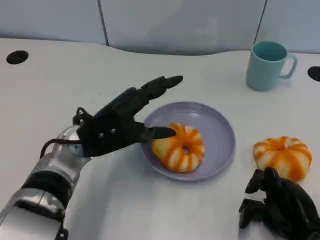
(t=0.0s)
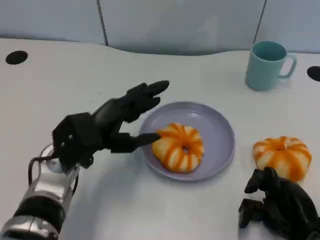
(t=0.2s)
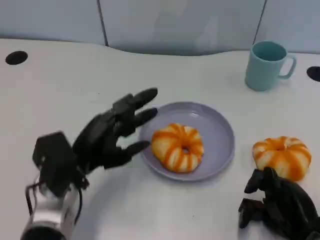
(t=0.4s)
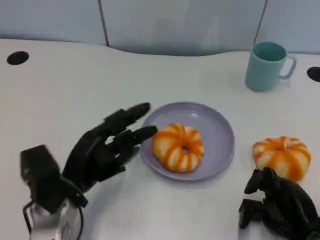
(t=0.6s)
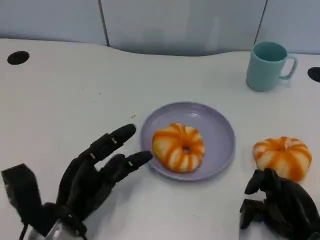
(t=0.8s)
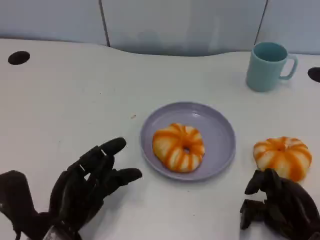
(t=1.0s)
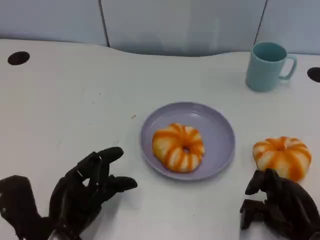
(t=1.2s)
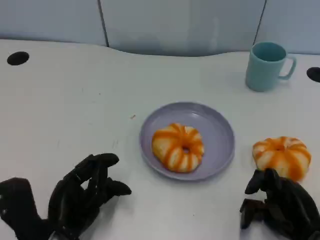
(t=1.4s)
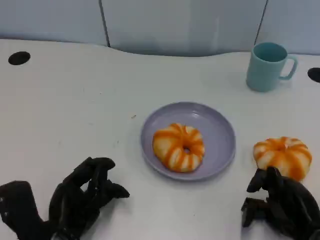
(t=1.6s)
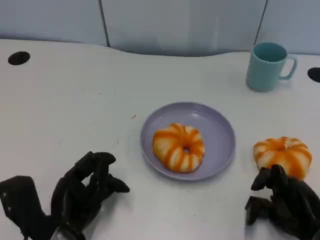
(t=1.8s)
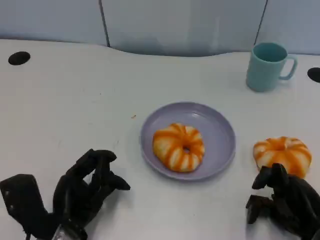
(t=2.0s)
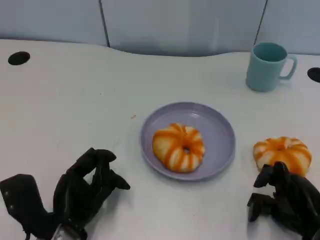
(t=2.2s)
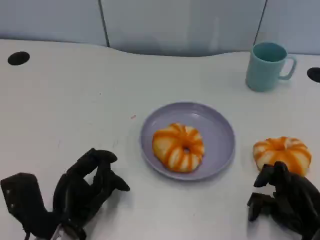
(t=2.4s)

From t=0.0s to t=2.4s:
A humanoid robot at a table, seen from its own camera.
Task of the whole recording: Grasp the bread from the table and place it into the plate.
From t=0.0s to t=1.2s: The left hand is displaced backward and downward by approximately 15 cm.
From t=1.2s to t=2.4s: The hands stay close to where they were, moving slightly.

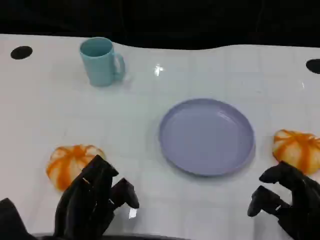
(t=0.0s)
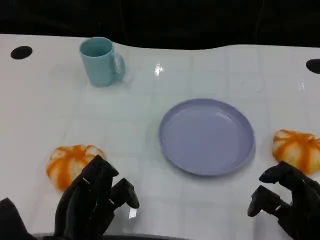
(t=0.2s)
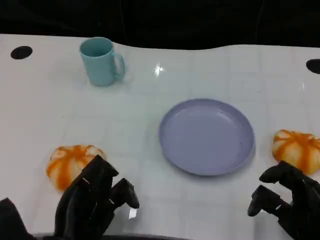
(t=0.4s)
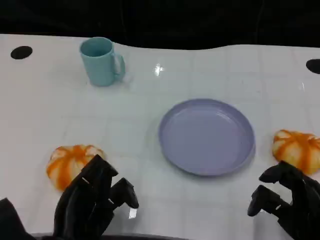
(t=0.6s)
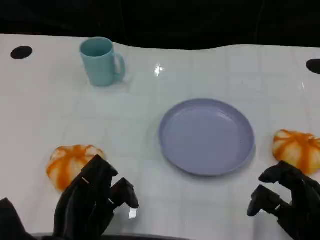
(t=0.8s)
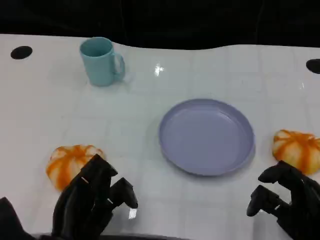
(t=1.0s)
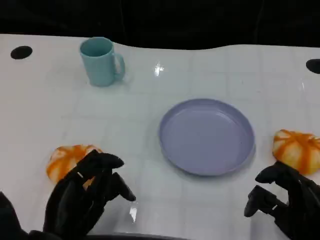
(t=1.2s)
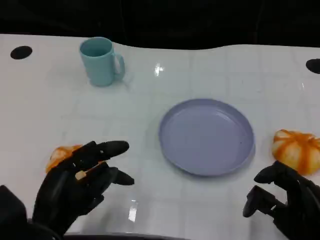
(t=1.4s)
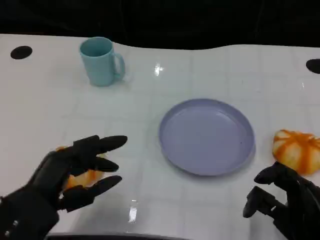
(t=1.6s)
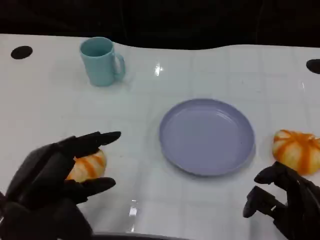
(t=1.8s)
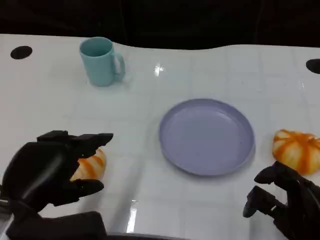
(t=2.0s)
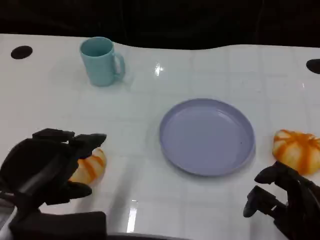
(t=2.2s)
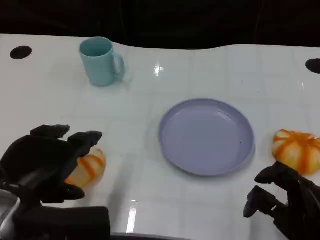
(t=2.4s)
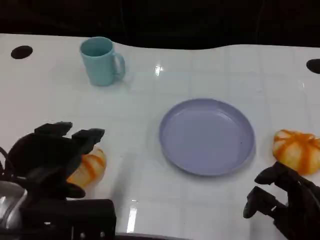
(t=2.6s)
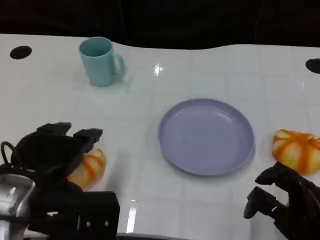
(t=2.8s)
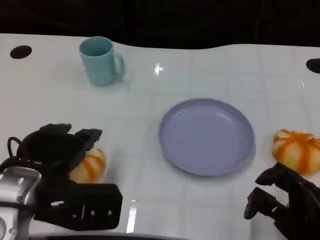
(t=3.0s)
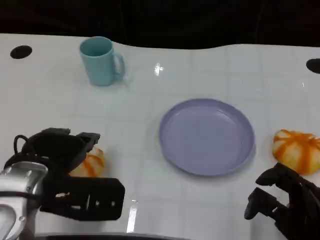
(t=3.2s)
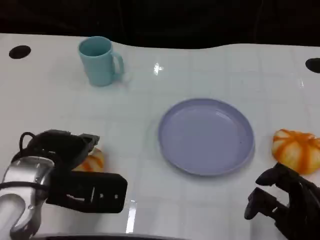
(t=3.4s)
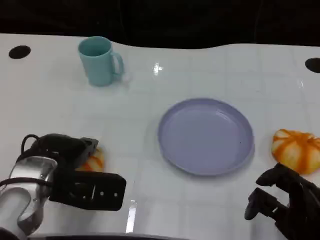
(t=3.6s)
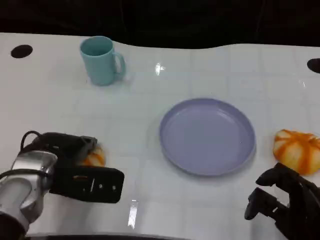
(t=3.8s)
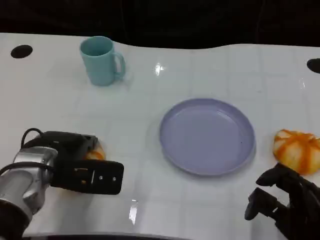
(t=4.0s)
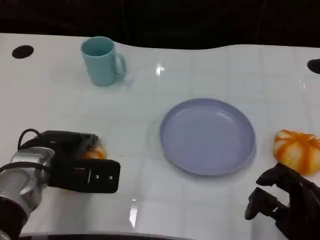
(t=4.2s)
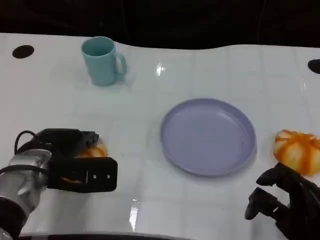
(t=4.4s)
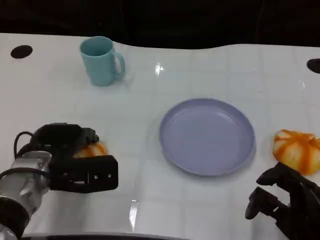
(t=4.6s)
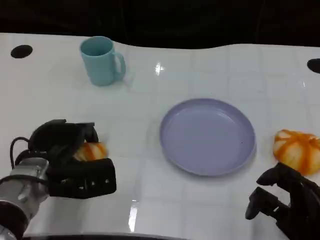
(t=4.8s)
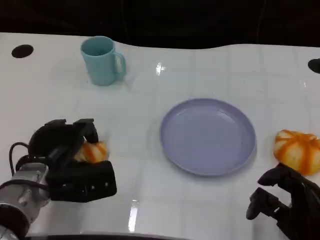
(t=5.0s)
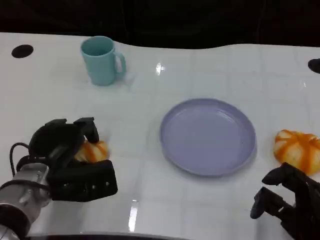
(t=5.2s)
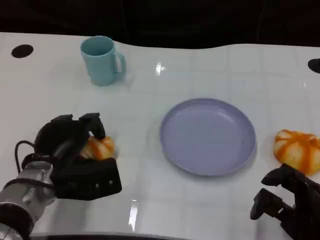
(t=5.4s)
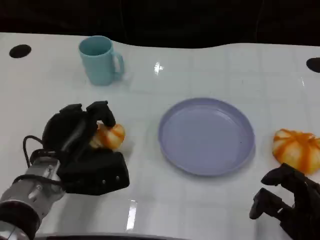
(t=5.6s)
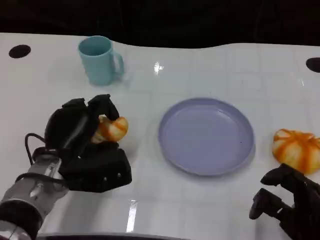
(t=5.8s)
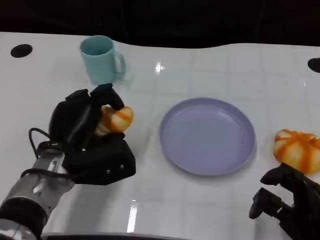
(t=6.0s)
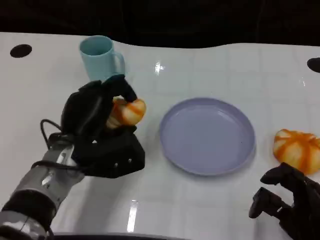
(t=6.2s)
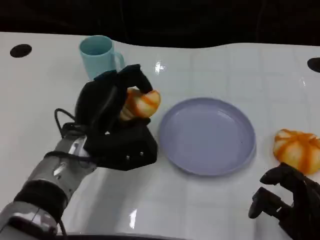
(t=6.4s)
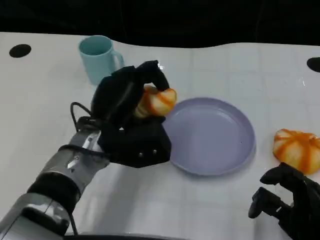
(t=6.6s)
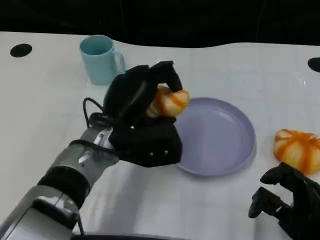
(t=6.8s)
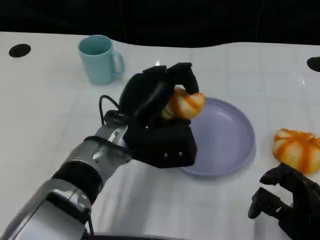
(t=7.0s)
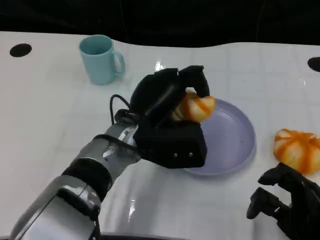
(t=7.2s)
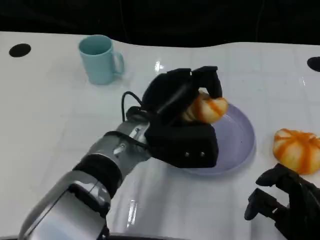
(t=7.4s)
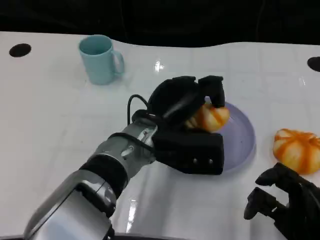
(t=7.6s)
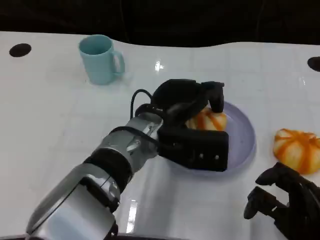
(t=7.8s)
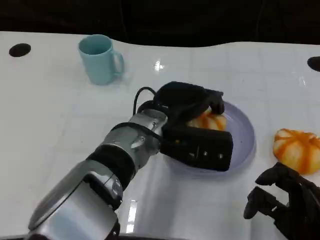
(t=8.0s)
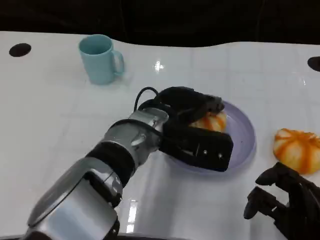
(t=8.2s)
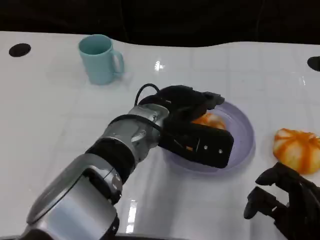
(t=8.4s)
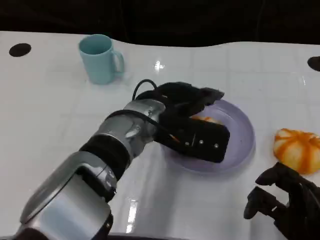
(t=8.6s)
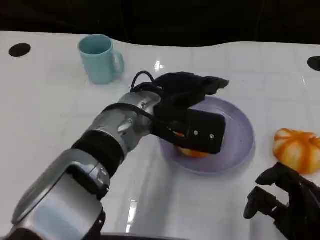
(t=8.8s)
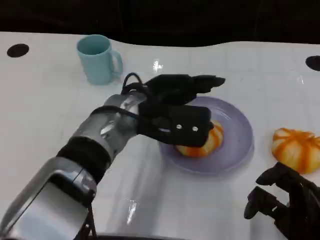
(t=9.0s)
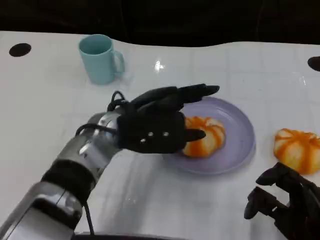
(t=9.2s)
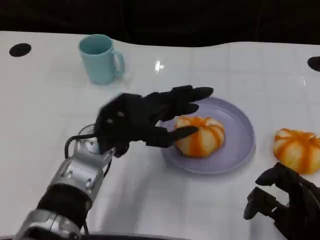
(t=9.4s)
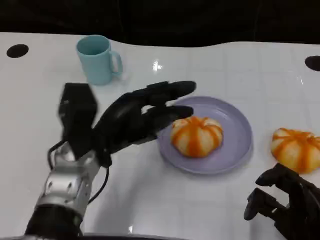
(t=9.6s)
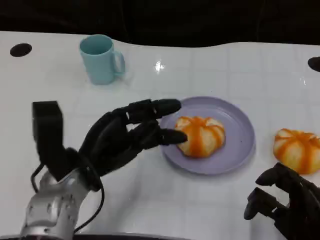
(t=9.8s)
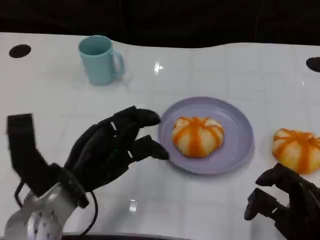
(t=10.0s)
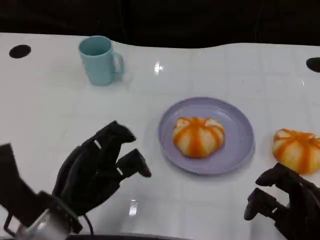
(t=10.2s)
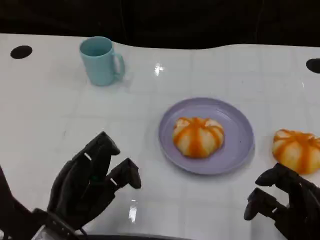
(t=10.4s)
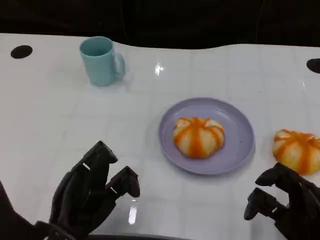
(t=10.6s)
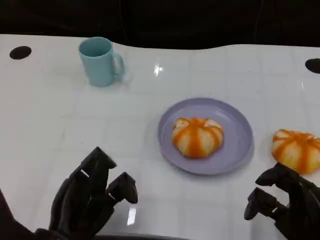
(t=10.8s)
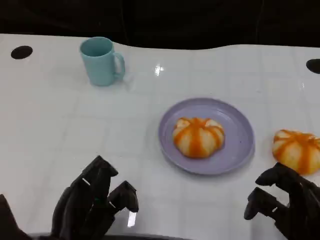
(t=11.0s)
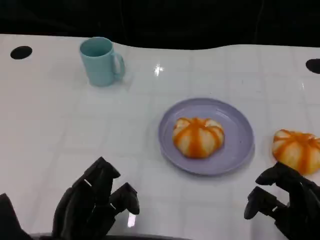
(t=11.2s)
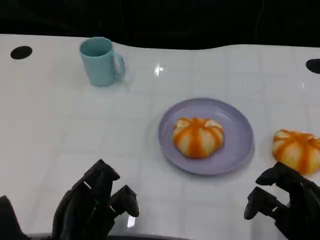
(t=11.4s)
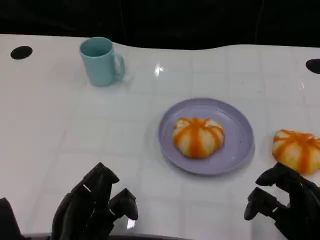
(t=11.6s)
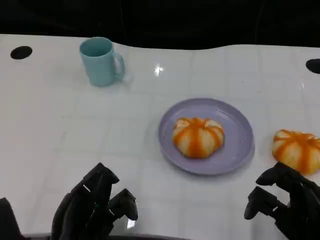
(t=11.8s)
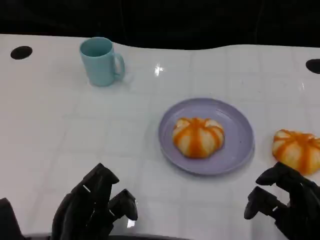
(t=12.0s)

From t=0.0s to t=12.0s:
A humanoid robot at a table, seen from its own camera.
Task of the whole recording: Grasp the bread from the table and place it into the plate.
From t=0.0s to t=1.6s: The left hand travels upward by about 5 cm.
From t=1.6s to t=3.0s: The left hand shifts by approximately 5 cm.
From t=3.0s to t=4.4s: The left hand travels forward and downward by about 10 cm.
From t=6.0s to t=7.6s: The left hand is displaced to the right by about 10 cm.
From t=7.6s to t=9.0s: The left hand ends up roughly 5 cm from where it was.
From t=9.0s to t=10.4s: The left hand heads backward, to the left and downward, covering about 20 cm.
From t=10.4s to t=12.0s: The hands make only small movements.

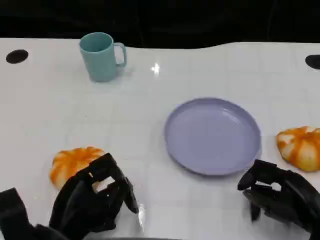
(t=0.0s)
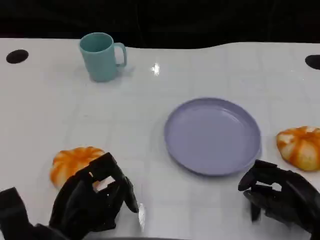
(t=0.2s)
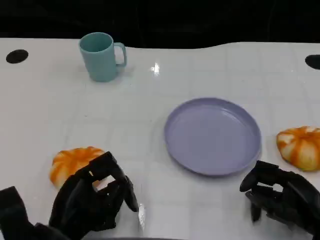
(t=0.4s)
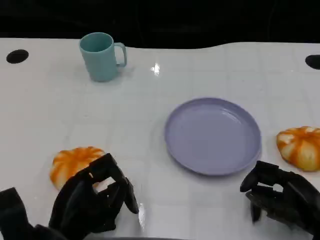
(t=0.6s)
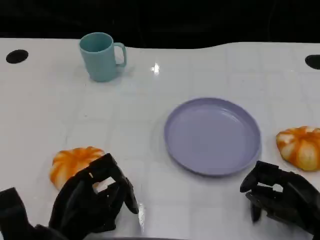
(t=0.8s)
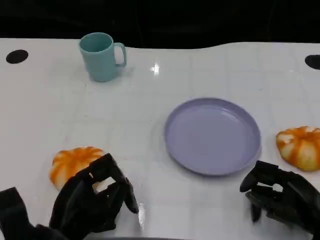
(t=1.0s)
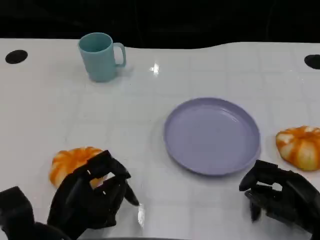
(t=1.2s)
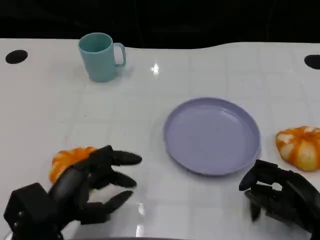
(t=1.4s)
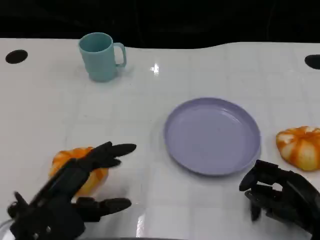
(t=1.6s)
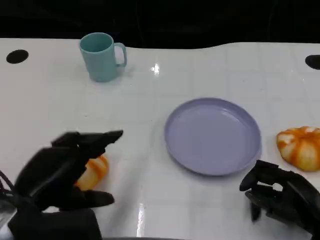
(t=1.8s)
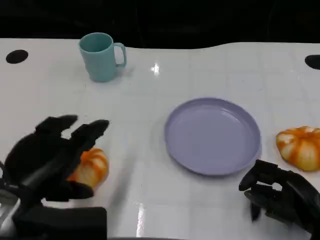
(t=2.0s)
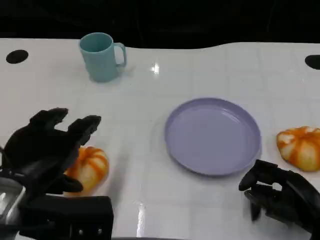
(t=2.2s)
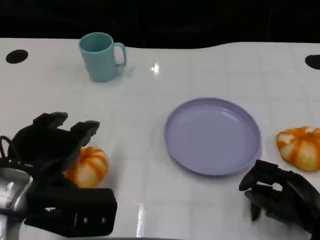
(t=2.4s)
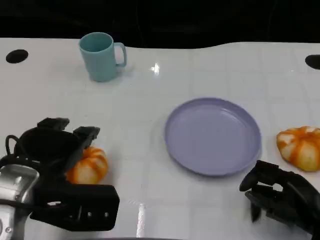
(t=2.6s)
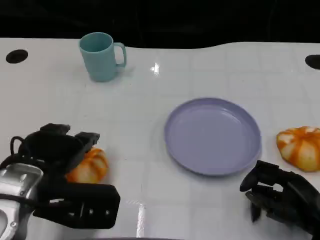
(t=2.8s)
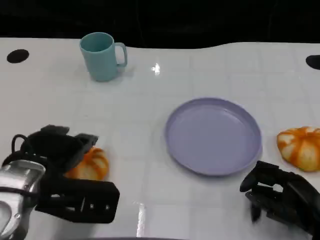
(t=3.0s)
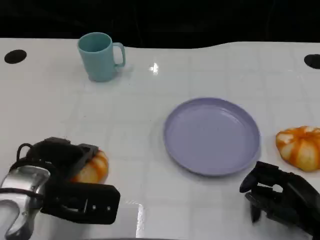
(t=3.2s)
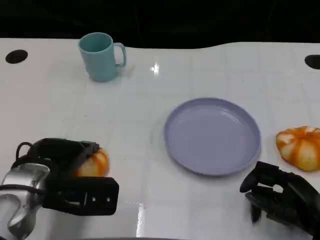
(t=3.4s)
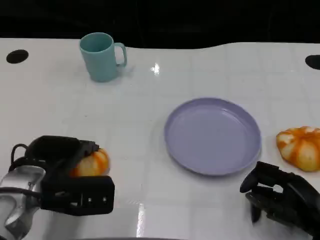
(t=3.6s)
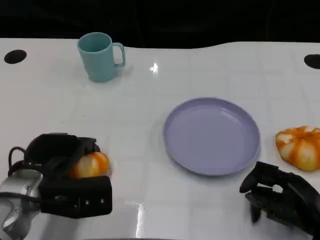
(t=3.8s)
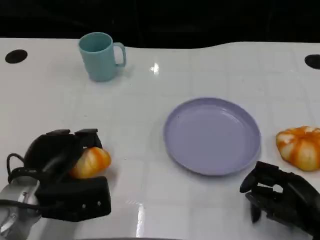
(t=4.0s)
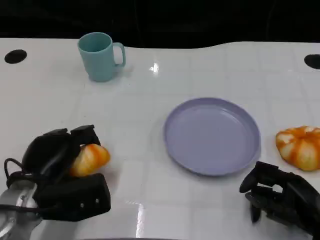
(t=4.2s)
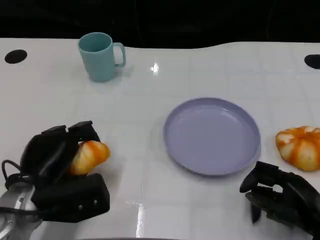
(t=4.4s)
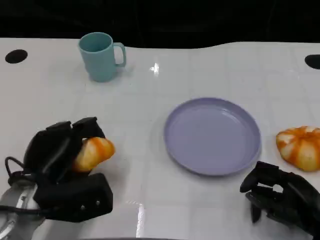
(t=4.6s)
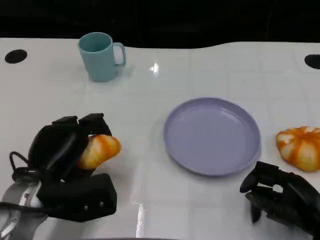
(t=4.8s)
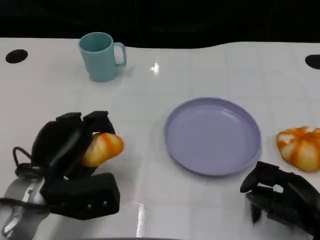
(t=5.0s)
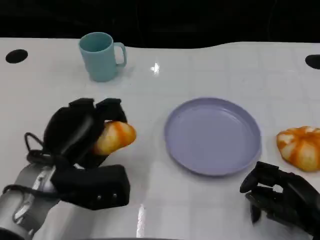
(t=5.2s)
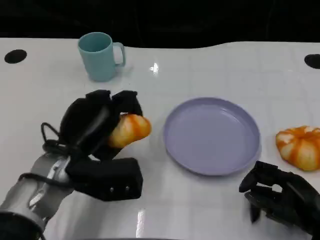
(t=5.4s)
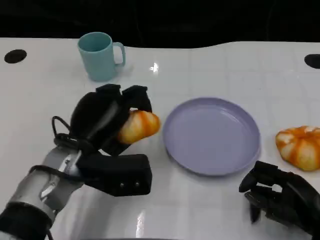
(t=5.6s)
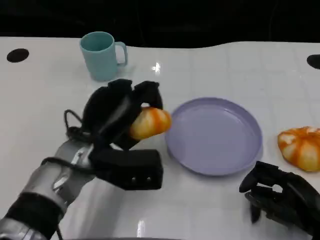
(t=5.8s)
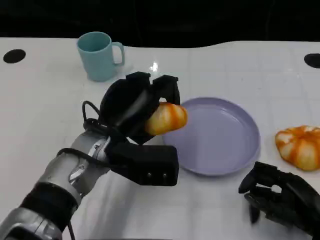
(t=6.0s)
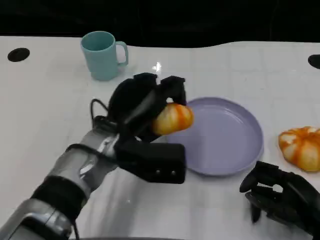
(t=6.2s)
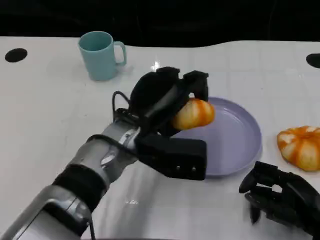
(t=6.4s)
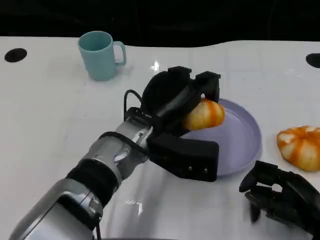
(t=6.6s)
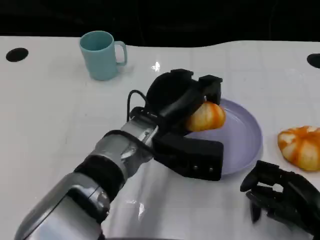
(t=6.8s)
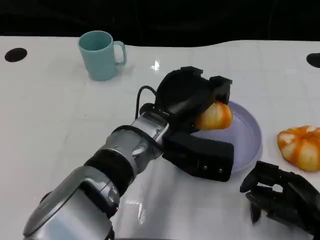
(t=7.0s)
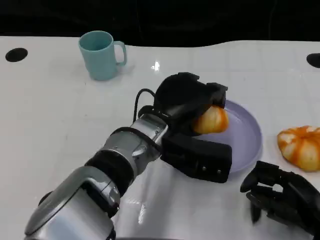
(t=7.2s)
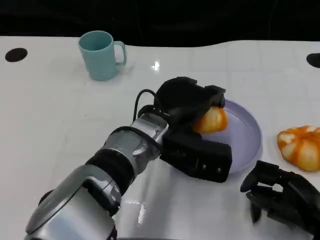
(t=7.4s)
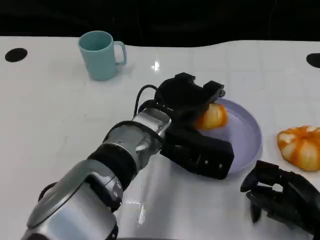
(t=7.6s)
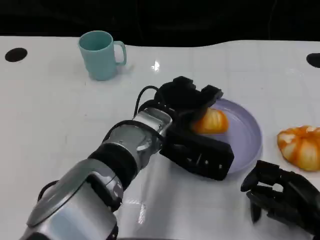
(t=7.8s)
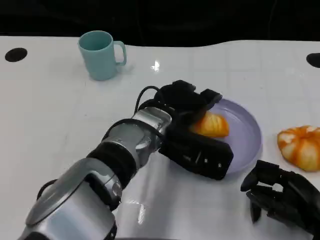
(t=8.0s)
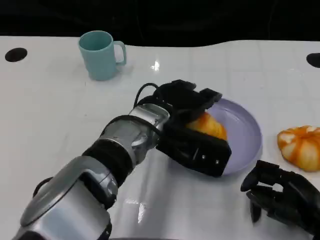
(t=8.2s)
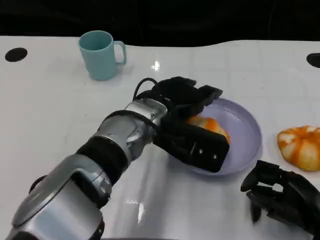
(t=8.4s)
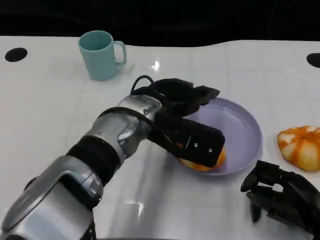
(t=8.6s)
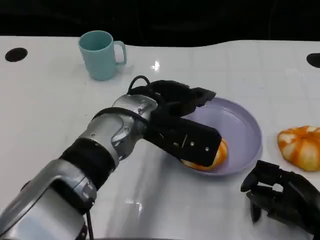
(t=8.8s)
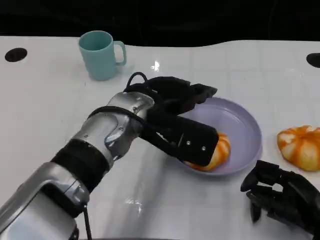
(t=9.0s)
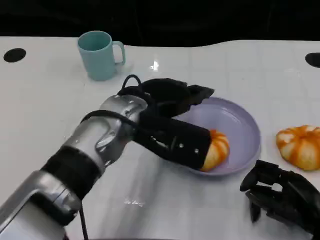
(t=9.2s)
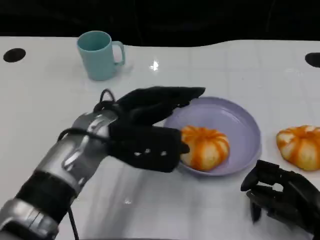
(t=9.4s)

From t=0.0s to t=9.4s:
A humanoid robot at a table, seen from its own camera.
Task of the whole recording: Grasp the bread from the table and place it into the plate.
From t=0.0s to t=1.6s: The left hand travels upward by approximately 5 cm.
From t=1.6s to t=3.2s: The left hand moves forward, some 5 cm.
From t=4.8s to t=6.2s: The left hand goes roughly 15 cm to the right and forward.
From t=6.2s to t=7.8s: The left hand is displaced to the right by approximately 5 cm.
From t=7.8s to t=9.4s: The left hand moves to the left, some 10 cm.
